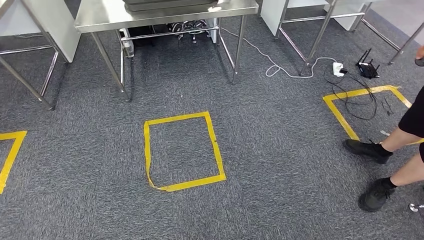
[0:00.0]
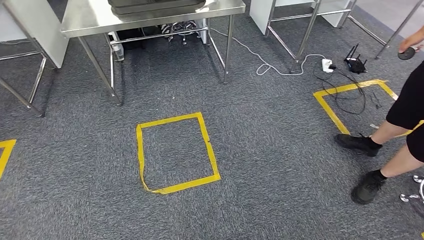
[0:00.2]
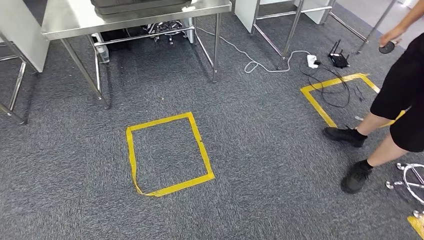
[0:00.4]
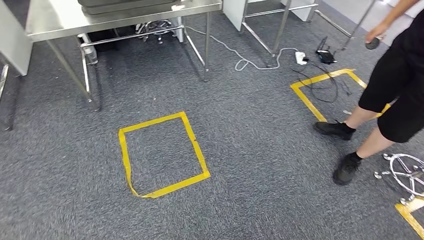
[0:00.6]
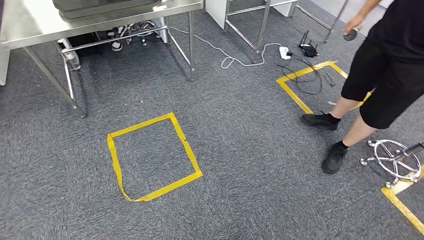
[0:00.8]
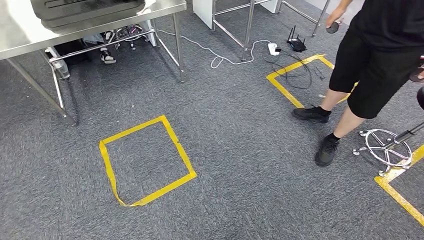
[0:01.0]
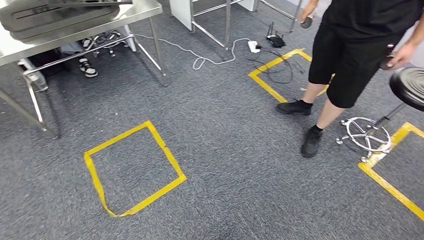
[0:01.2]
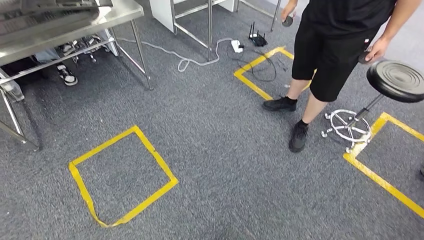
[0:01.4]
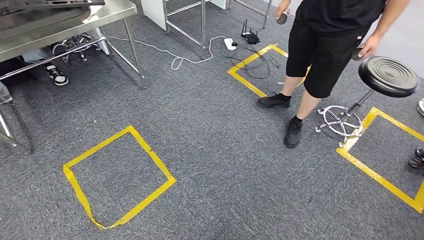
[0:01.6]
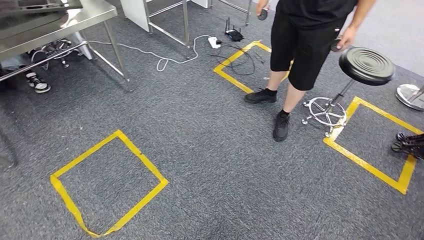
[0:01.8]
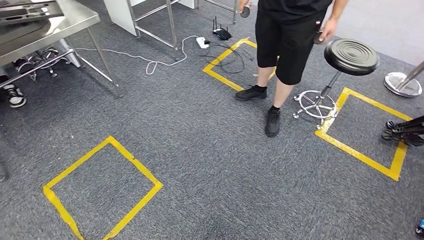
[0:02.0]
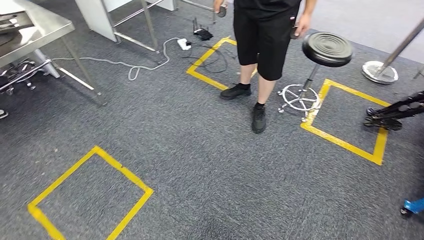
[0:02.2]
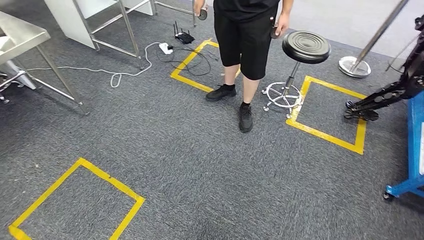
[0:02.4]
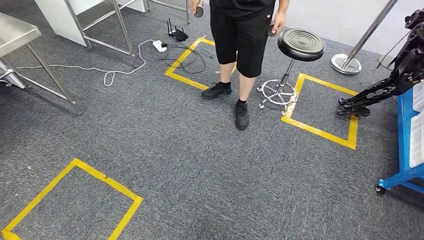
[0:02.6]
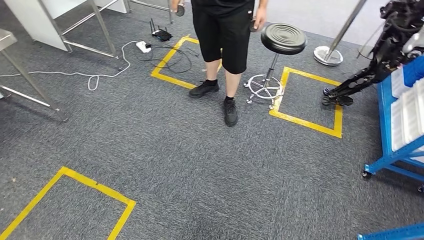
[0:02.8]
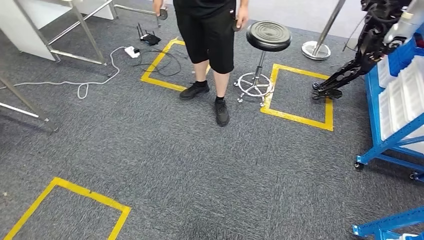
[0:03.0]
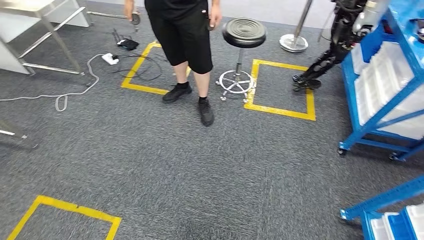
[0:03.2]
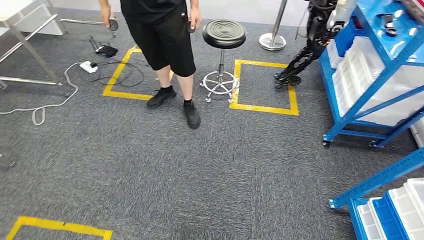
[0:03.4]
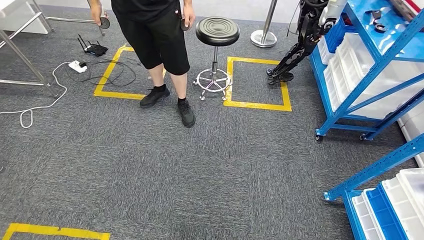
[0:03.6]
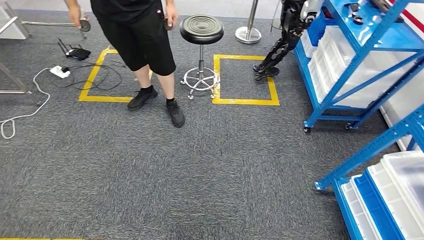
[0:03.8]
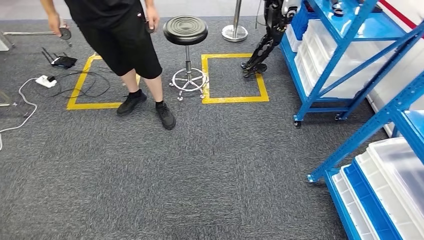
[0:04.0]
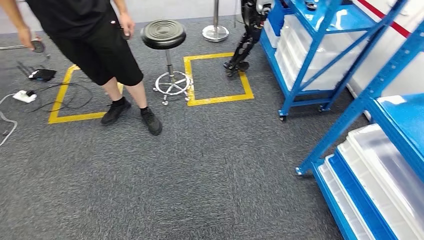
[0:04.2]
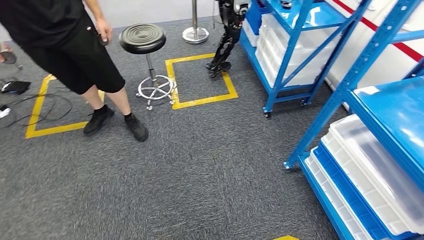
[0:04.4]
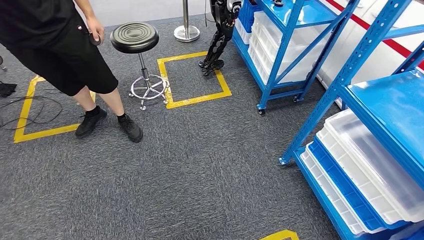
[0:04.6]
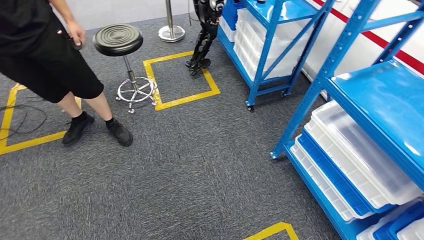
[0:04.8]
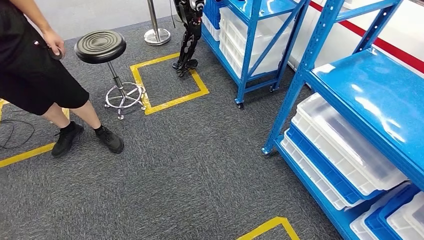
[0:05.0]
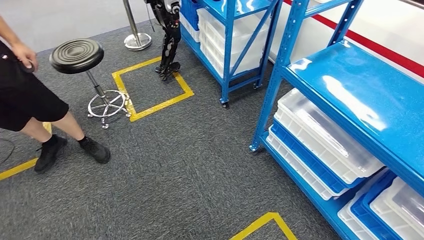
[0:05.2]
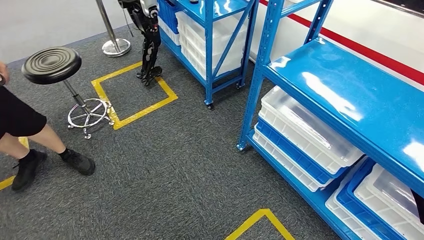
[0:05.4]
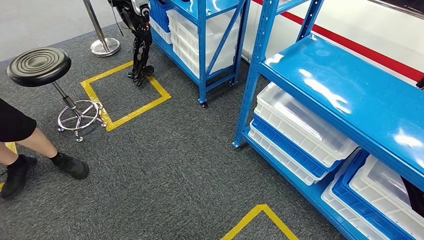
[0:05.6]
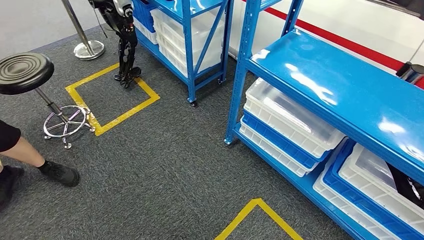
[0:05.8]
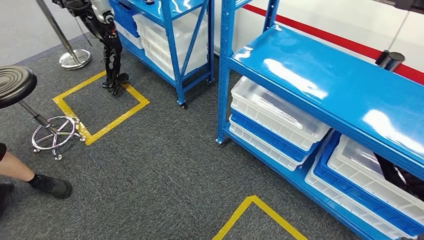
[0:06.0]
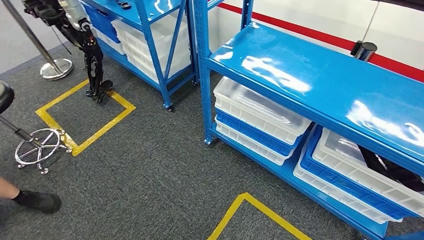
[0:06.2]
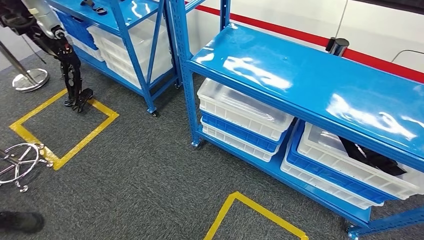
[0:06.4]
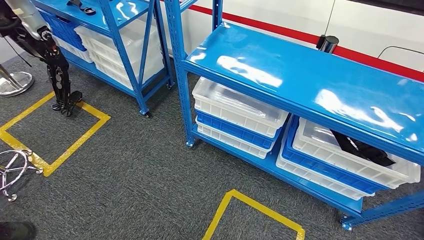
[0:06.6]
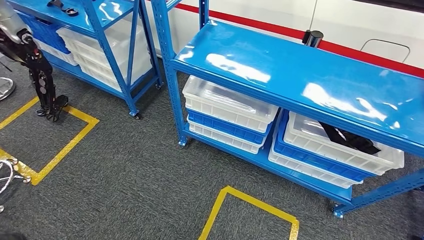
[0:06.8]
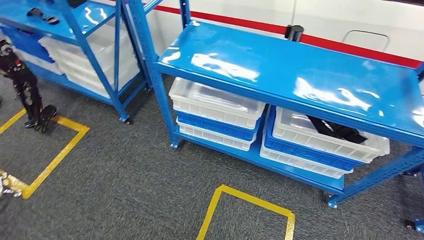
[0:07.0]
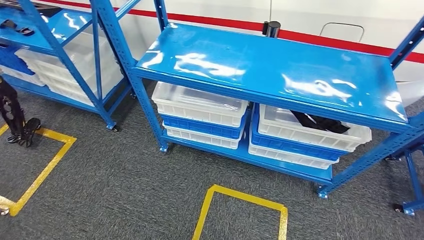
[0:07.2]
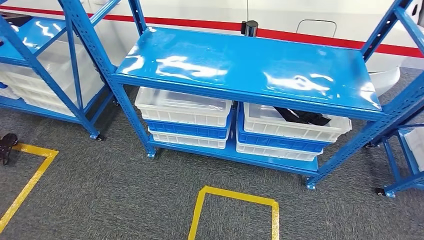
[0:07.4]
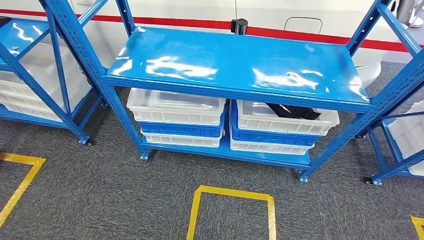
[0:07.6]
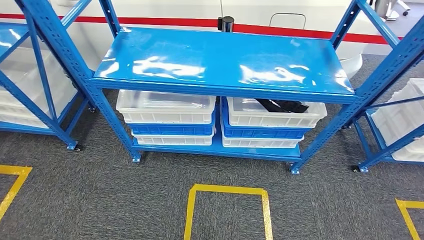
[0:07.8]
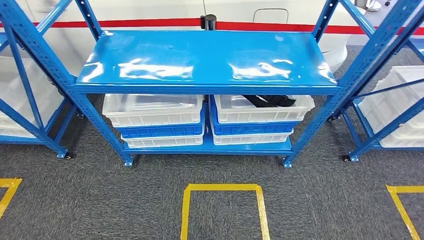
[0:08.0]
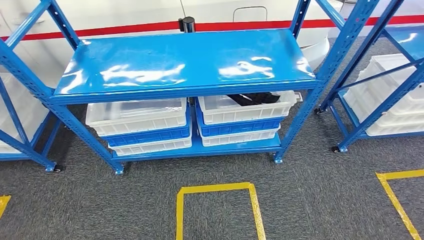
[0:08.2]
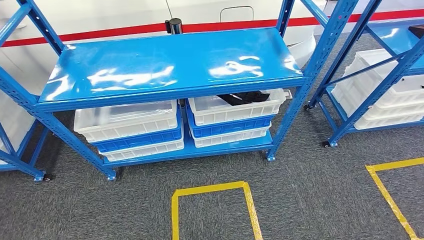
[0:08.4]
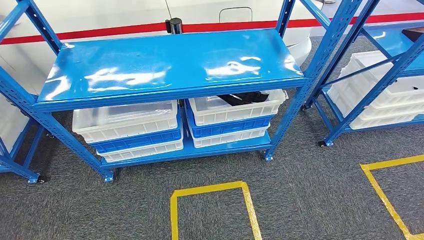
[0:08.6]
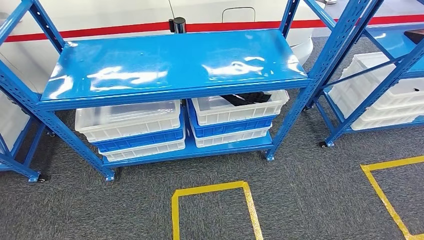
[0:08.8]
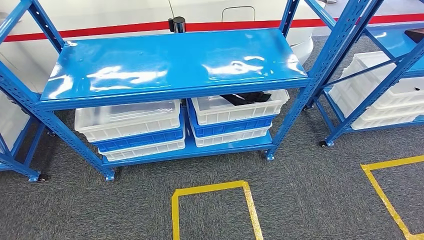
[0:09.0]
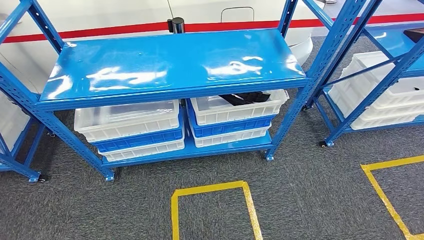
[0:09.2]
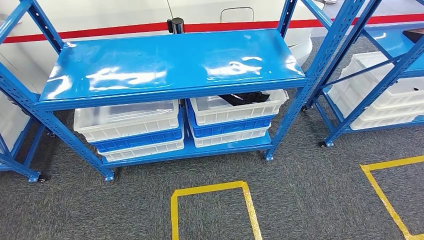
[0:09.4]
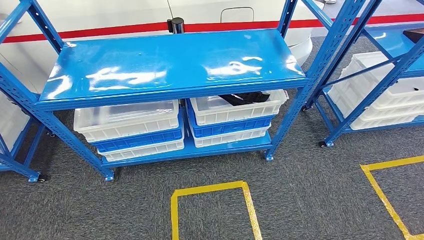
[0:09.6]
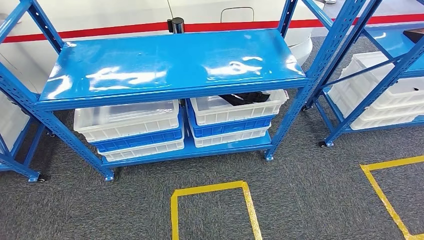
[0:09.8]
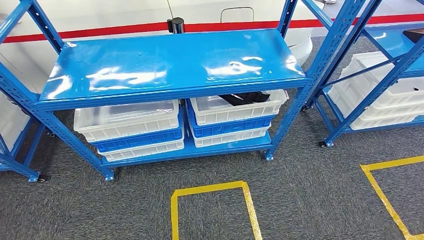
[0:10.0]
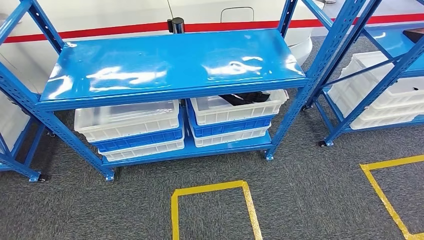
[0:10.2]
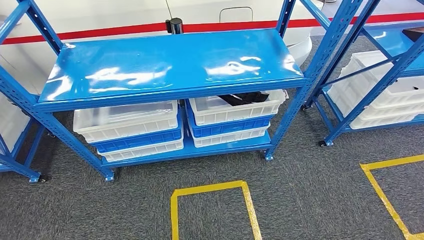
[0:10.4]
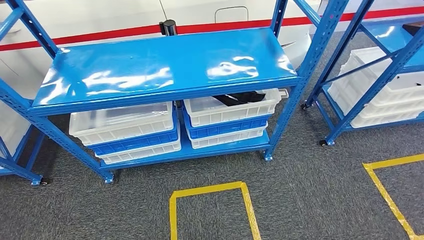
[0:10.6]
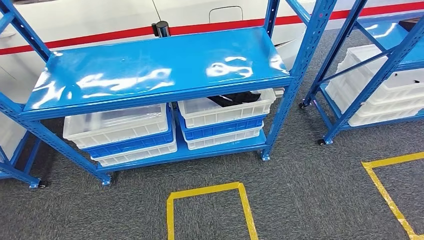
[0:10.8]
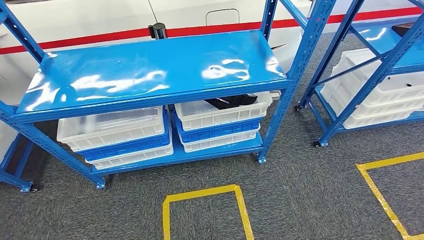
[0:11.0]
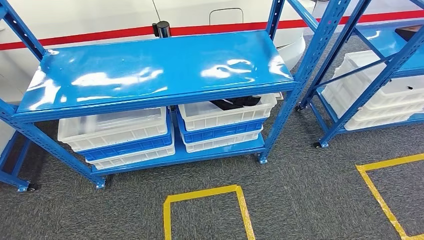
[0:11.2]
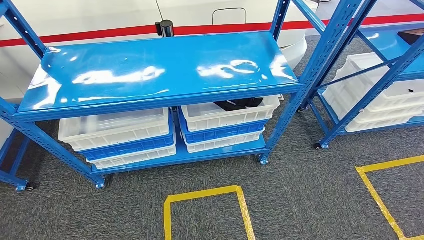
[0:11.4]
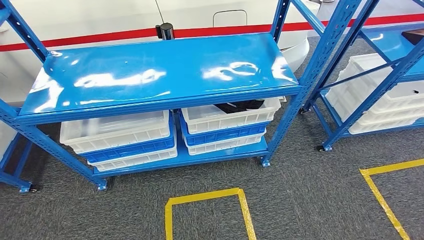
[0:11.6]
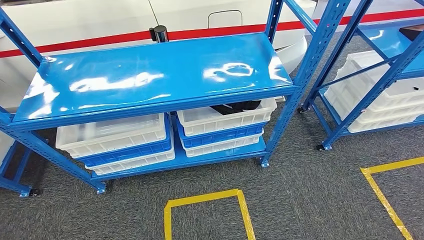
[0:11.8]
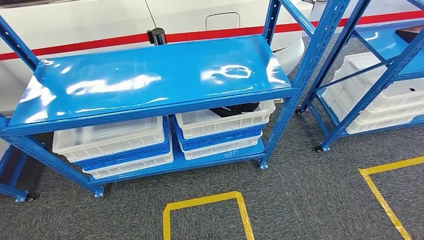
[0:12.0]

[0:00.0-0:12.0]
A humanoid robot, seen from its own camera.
0:09.0 to 0:10.4: Both hands stay about where they are.

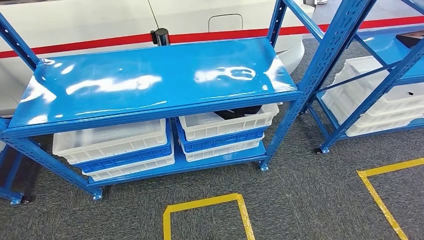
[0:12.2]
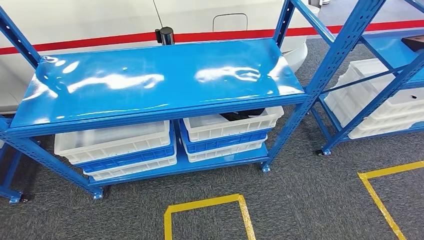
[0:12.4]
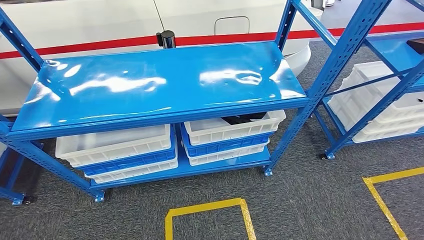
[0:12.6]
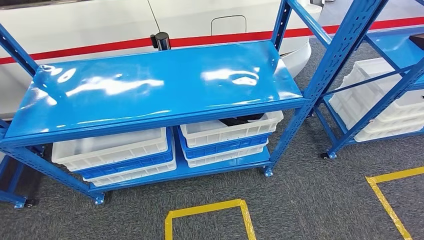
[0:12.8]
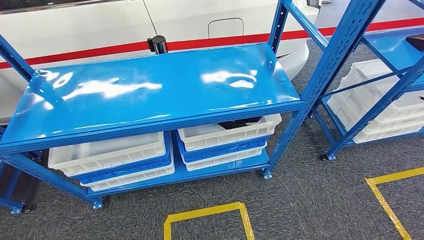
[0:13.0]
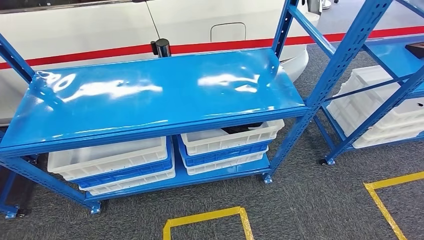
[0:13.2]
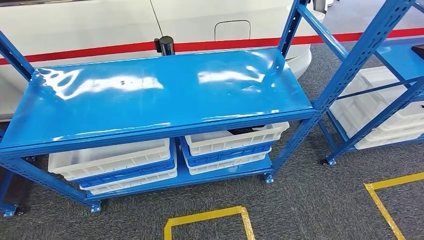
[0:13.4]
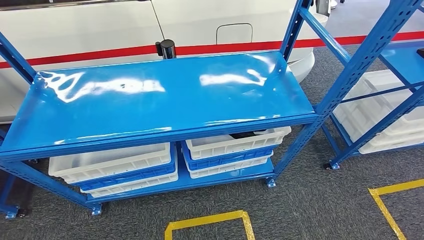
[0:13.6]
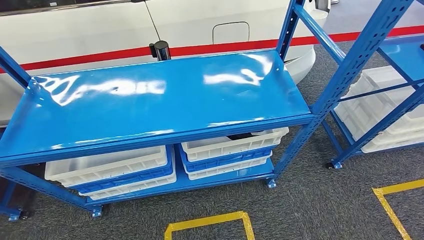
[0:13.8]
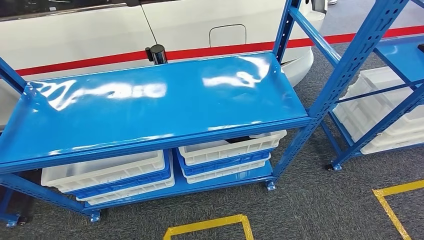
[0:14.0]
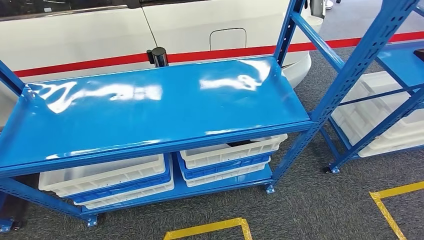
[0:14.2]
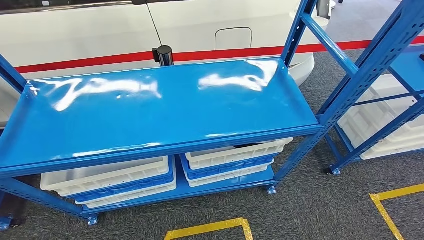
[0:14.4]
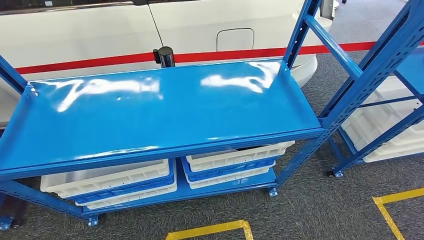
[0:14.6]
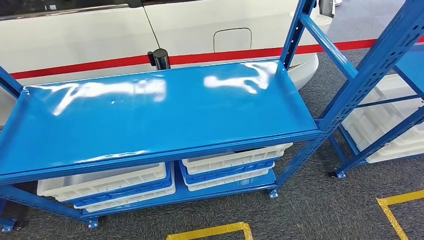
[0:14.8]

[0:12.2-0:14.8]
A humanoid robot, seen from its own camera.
Step, 0:12.2 to 0:14.8: Return to the initial position at the shelf.

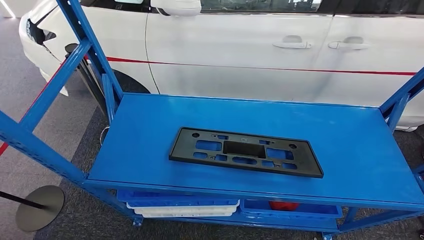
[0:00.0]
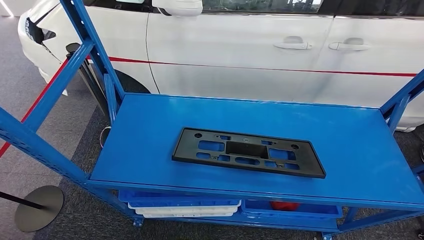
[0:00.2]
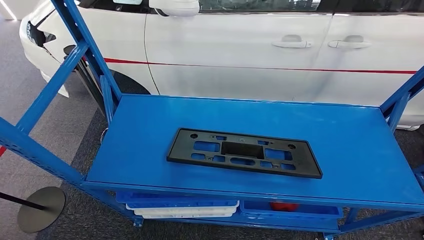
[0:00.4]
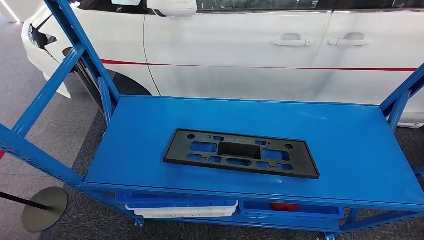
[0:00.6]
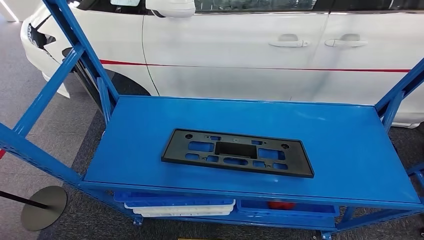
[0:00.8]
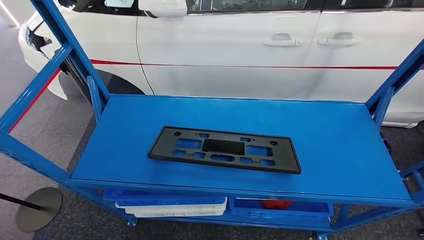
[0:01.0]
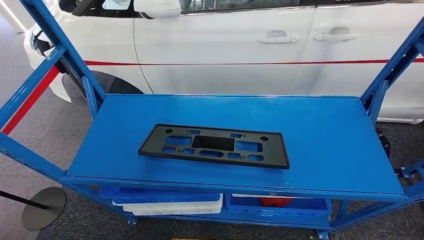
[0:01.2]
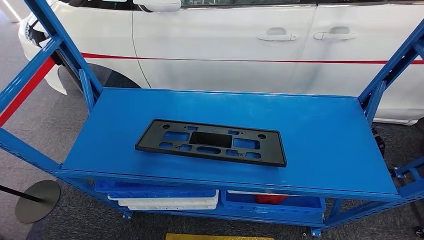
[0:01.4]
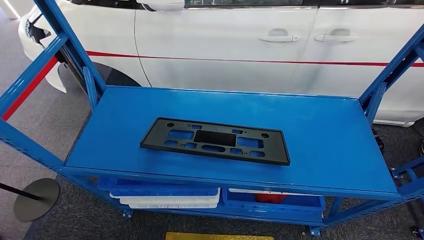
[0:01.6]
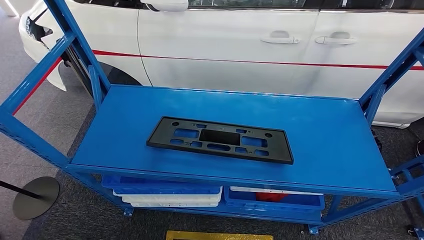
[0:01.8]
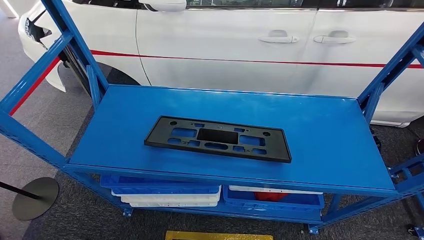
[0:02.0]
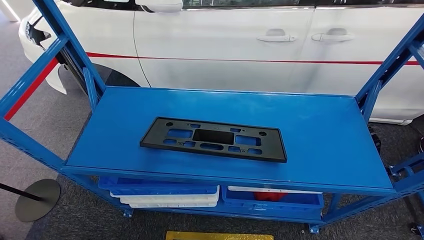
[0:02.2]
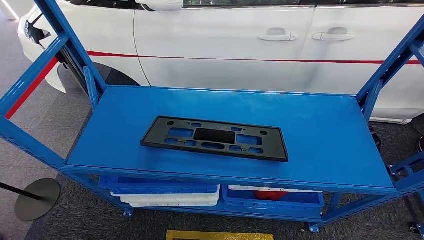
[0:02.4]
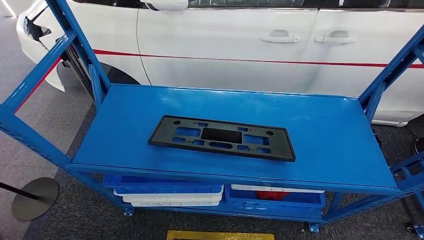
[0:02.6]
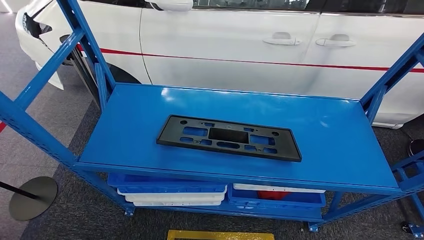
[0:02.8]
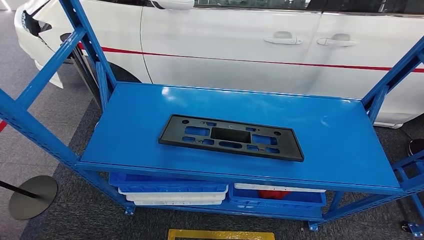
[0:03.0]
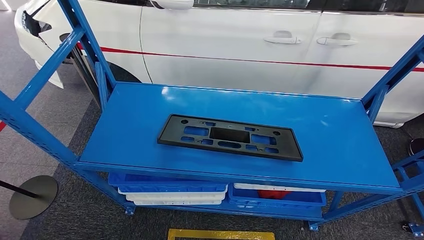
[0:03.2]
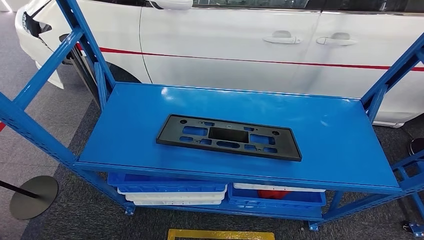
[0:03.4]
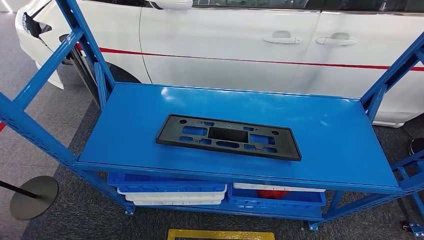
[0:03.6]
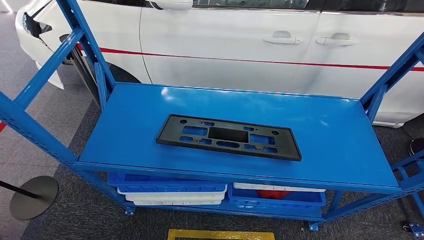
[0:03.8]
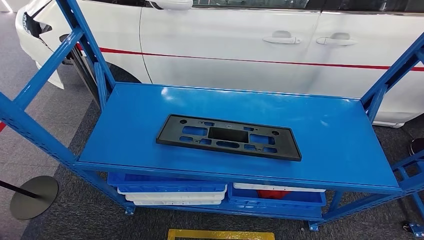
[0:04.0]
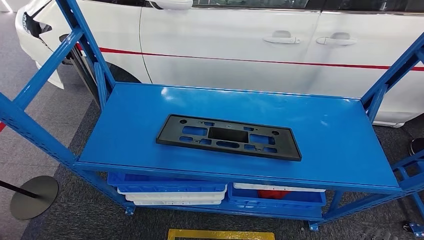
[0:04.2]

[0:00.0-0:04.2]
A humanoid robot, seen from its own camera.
0:02.8 to 0:04.2: The right hand moves forward and upward, about 10 cm.
